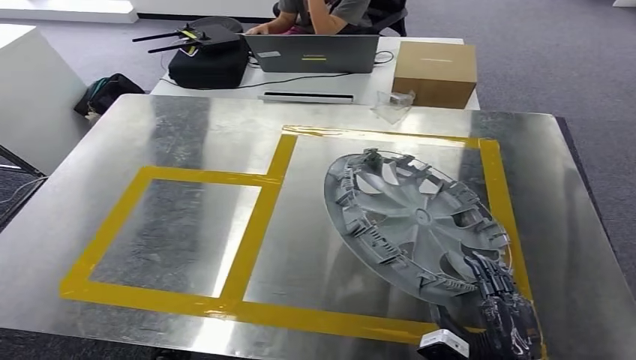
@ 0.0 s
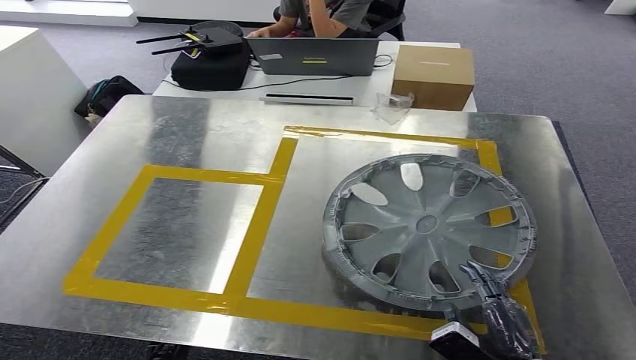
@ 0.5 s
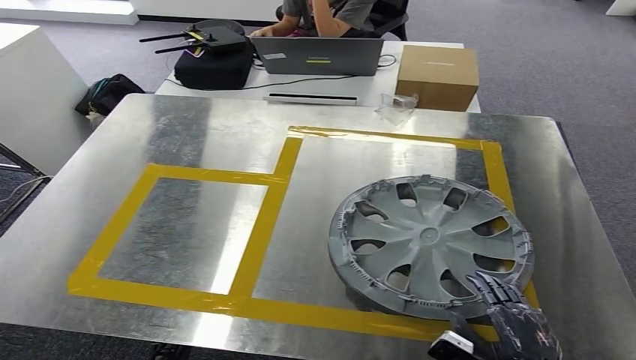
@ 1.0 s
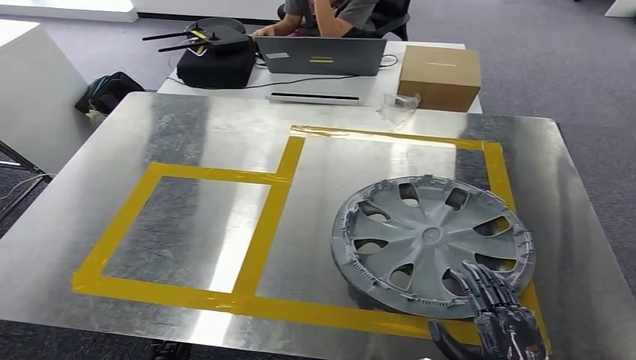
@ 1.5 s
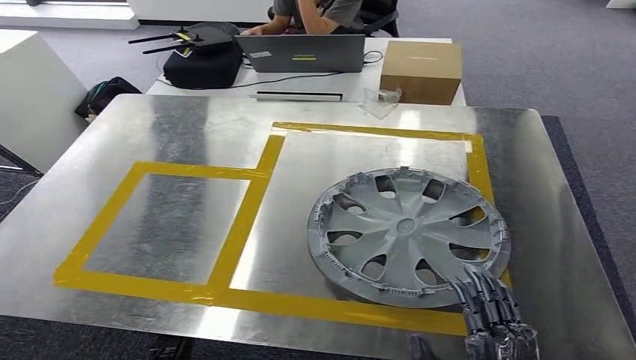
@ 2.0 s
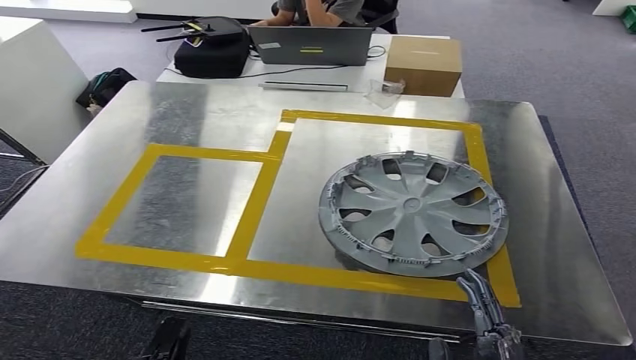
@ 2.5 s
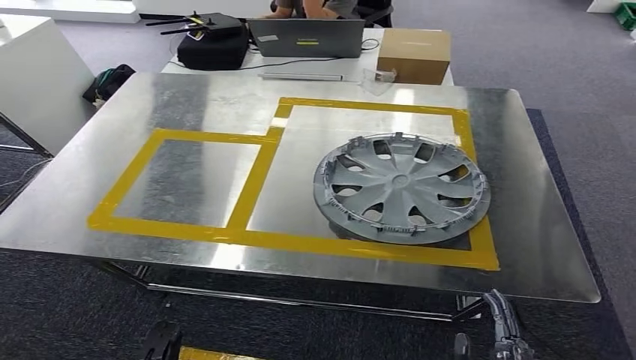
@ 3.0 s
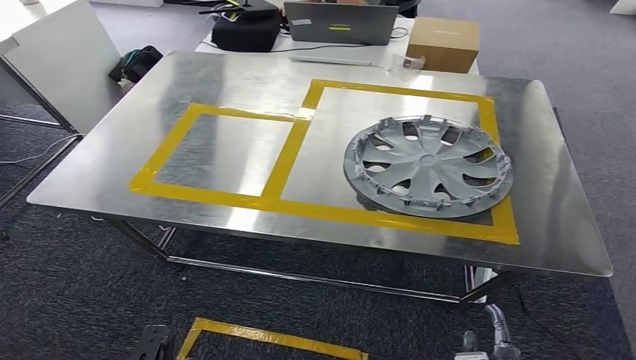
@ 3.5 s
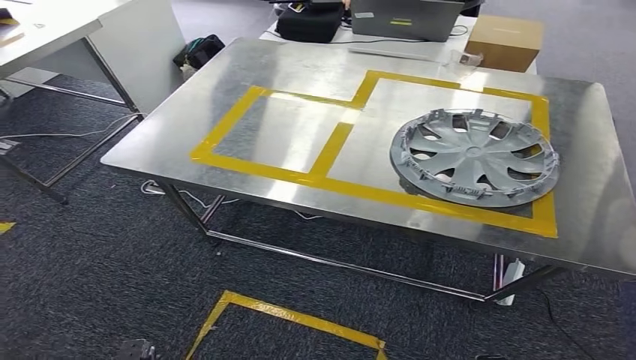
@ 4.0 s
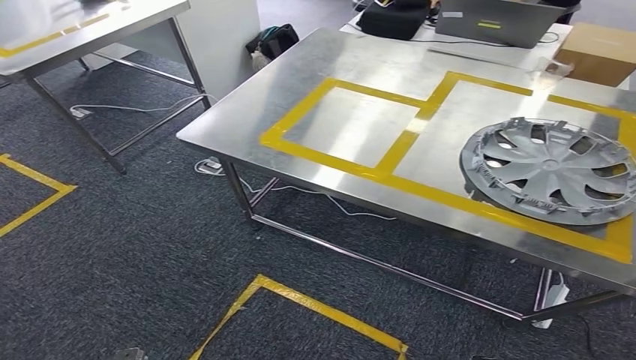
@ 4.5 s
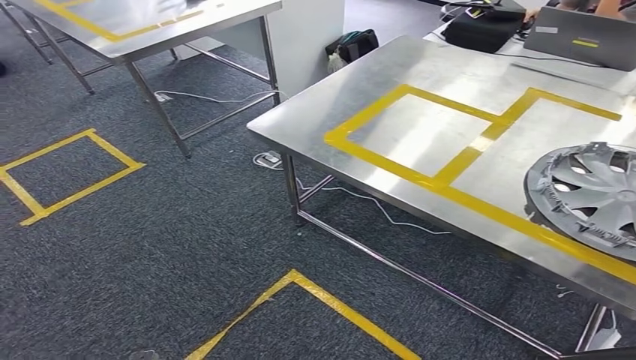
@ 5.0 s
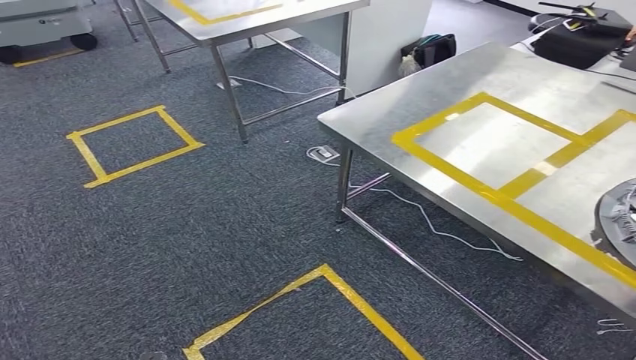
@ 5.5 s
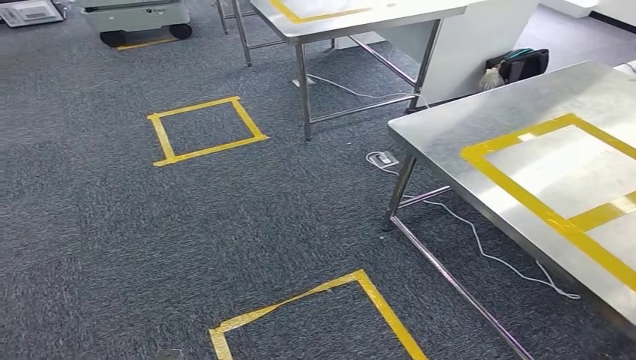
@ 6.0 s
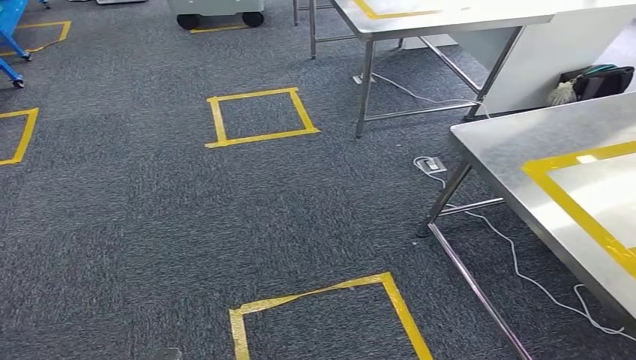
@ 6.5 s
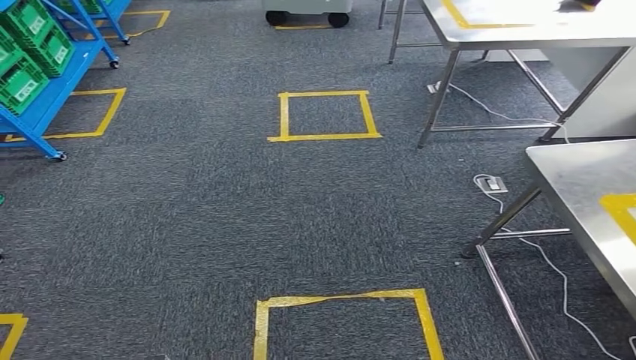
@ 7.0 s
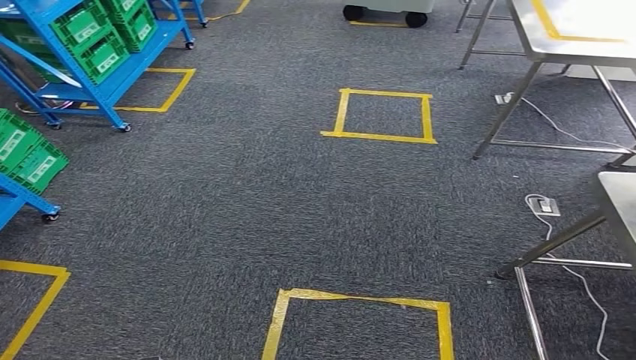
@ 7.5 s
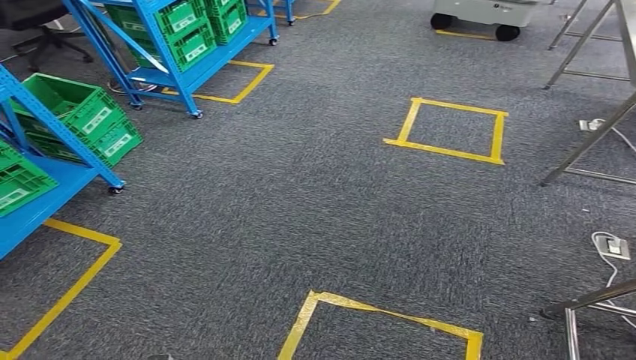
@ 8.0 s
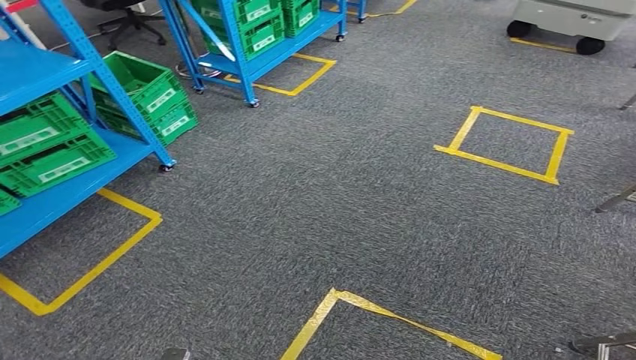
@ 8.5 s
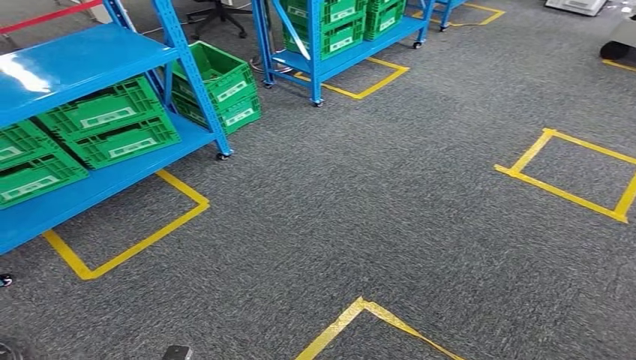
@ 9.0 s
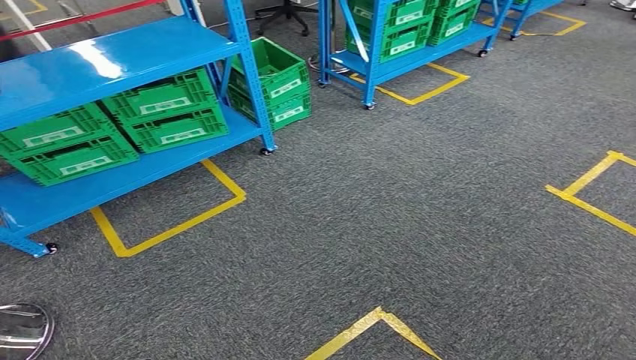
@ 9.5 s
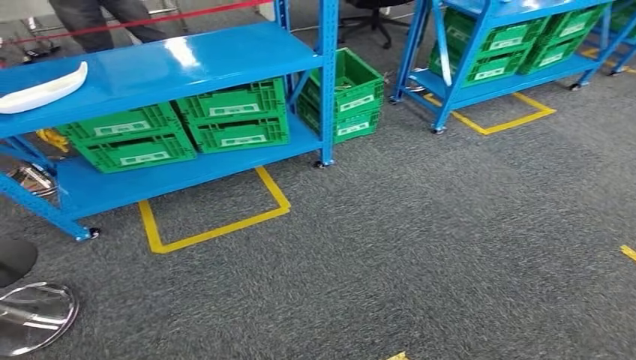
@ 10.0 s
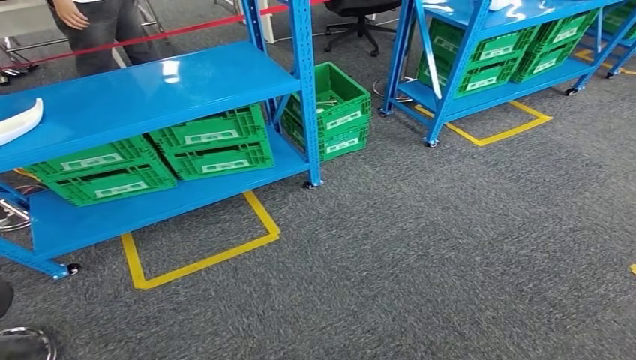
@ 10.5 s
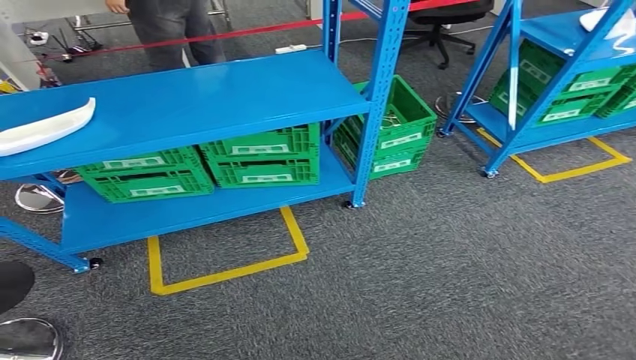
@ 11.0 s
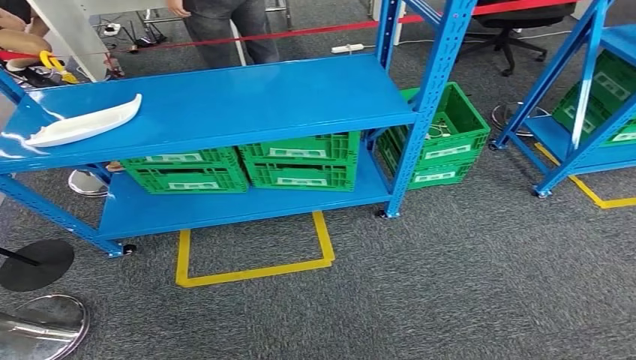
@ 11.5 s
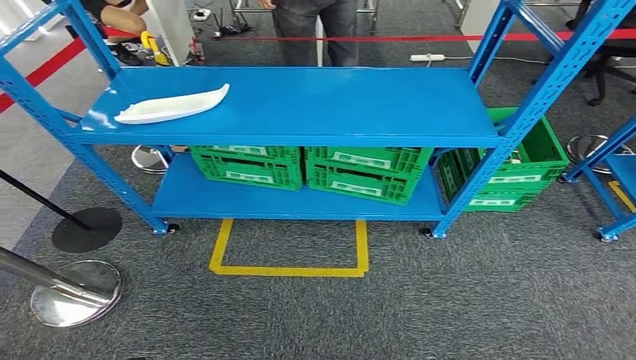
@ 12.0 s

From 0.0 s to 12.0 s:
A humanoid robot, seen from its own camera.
Step, from 0.0 s to 2.5 s: Insert the small component into the corresponding slot on the workbench.
Step, from 3.0 s to 12.0 s: Move to the initial position at the workbench.
